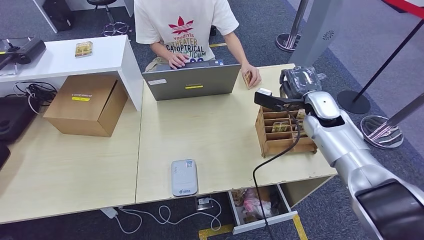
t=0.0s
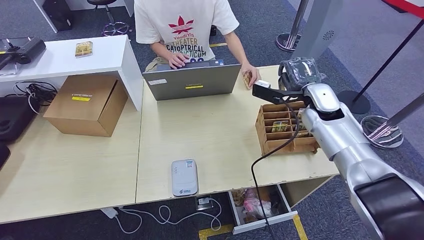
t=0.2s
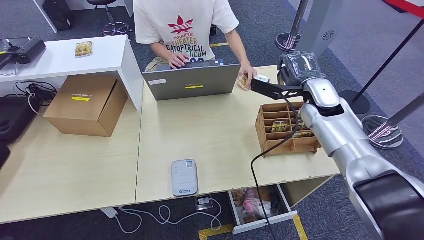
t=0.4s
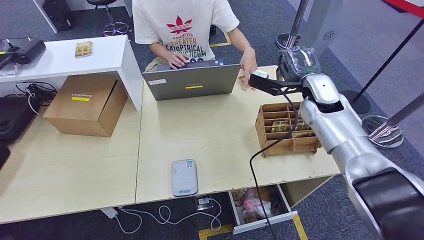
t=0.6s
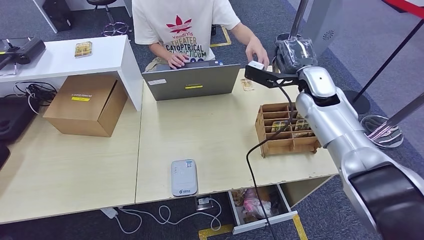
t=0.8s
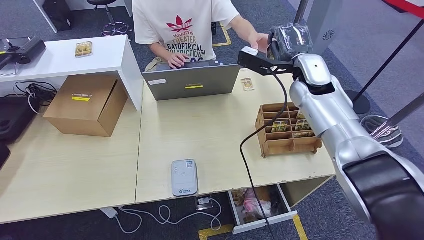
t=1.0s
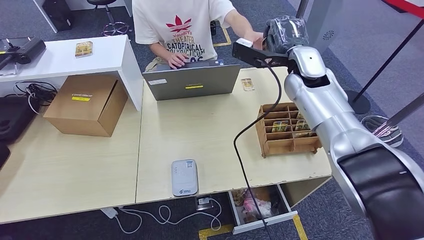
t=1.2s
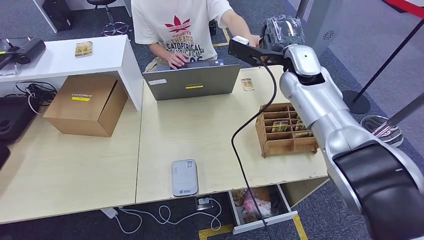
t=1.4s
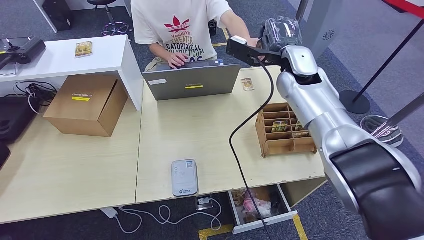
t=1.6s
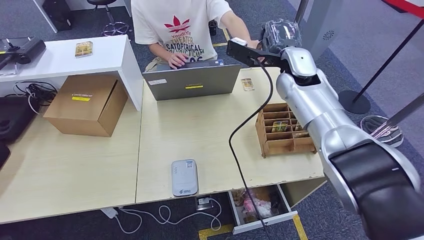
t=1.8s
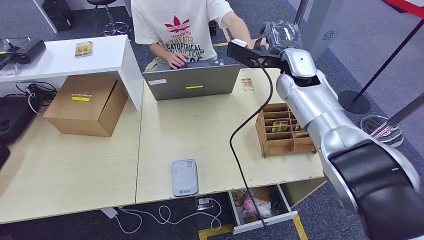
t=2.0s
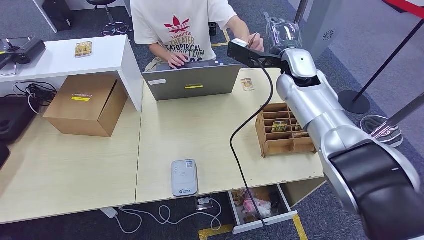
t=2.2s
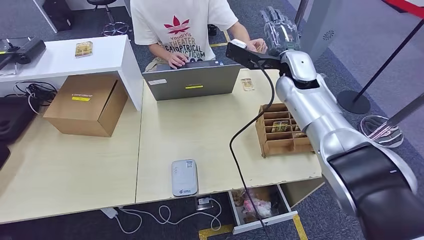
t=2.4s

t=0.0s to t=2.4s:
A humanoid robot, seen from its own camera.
Step, t=0.0s to t=2.2s: Hand the room key to the person.
t=0.0s to t=1.2s: The right hand goes approximately 15 cm upward, to the left and forward.
t=1.2s to t=2.4s: There are only small adjustments of the hands.
